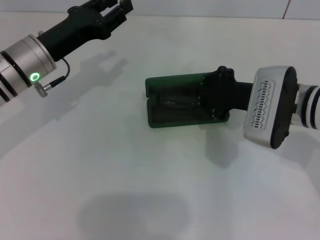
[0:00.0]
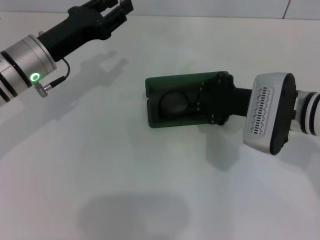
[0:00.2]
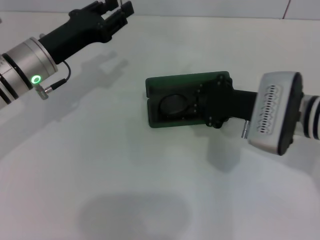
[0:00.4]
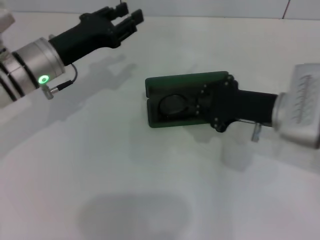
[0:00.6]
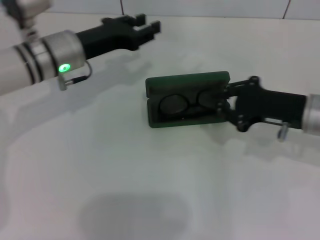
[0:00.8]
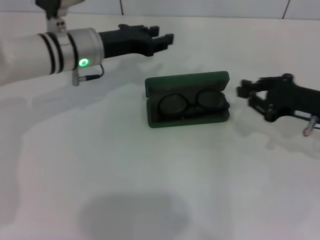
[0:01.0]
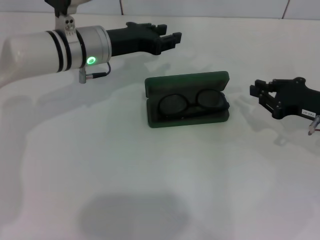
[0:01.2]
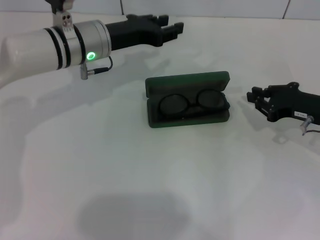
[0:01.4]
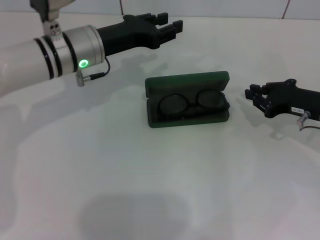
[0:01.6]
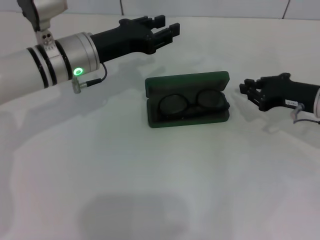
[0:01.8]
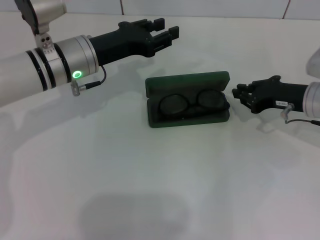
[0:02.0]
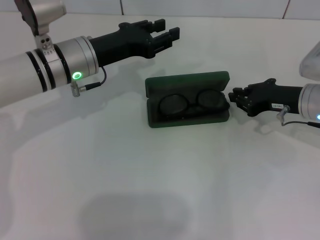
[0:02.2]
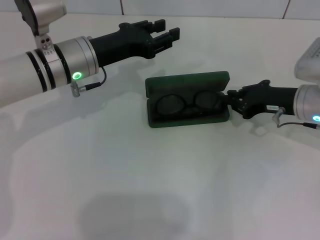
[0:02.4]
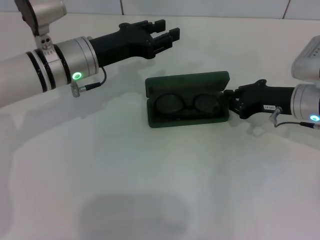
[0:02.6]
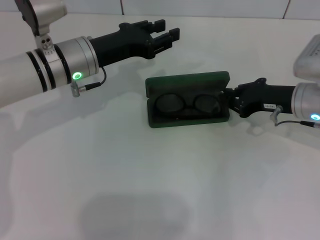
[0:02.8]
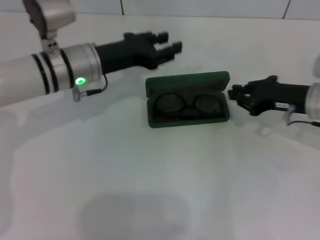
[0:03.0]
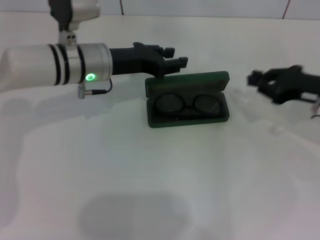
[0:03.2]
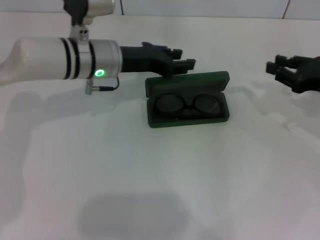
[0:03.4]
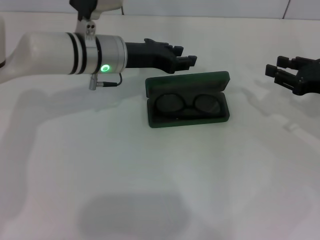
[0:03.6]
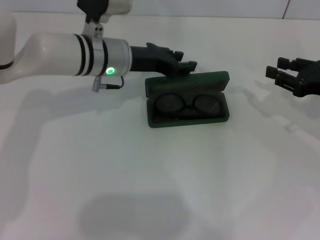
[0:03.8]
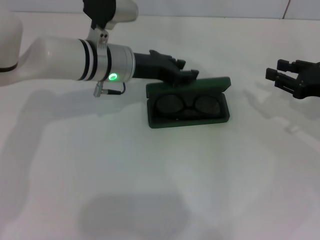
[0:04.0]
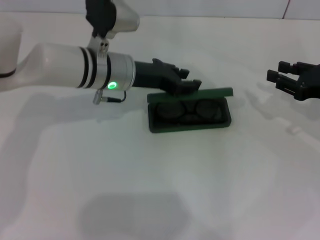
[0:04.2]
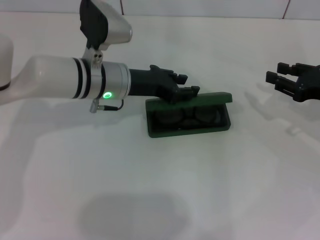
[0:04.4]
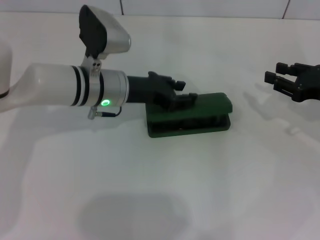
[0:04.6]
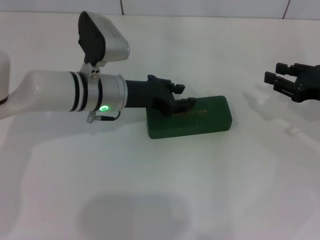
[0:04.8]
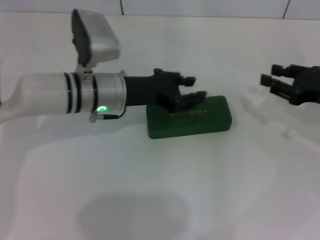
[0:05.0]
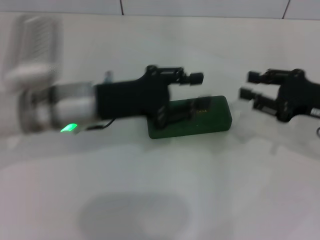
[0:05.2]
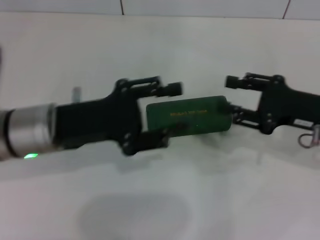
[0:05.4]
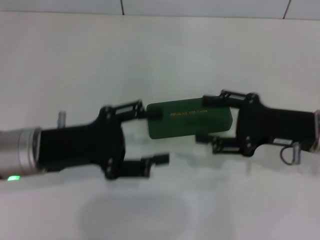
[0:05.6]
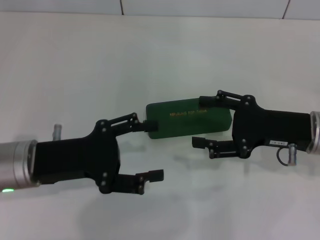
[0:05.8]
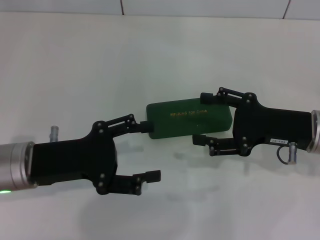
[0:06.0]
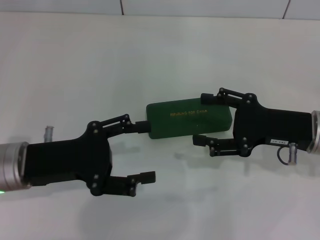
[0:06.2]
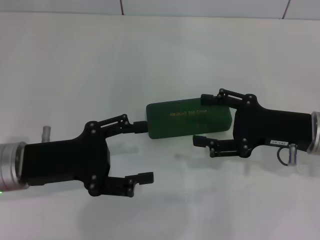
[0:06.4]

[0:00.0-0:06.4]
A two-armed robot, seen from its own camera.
Step, 0:00.0 to 0:02.6: Put the glasses into the case with your right hand.
Step, 0:02.8 to 0:04.6: Close the glasses case with your left hand.
0:00.0 to 0:01.6: The right gripper shifts about 10 cm to the right. The left gripper is displaced to the right by some 5 cm.
0:01.6 to 0:03.2: There are only small adjustments of the grippers.
0:03.2 to 0:04.8: There are only small adjustments of the grippers.
0:04.8 to 0:06.4: The left gripper travels backward and to the left by some 15 cm, and opens. Meanwhile the right gripper heads to the left, covering some 10 cm, and opens.
